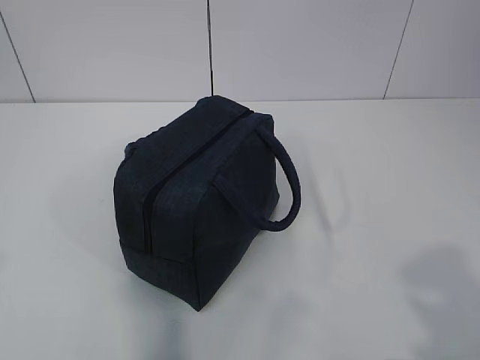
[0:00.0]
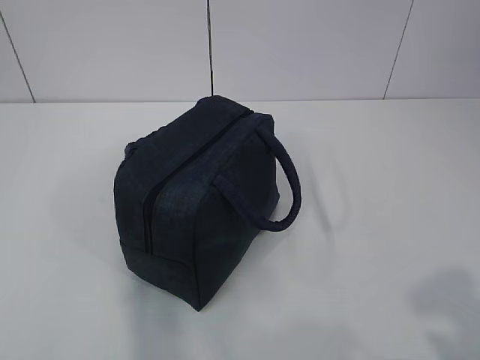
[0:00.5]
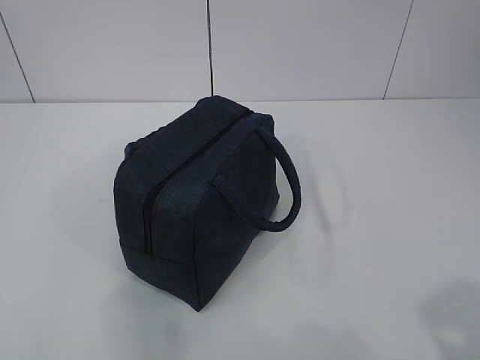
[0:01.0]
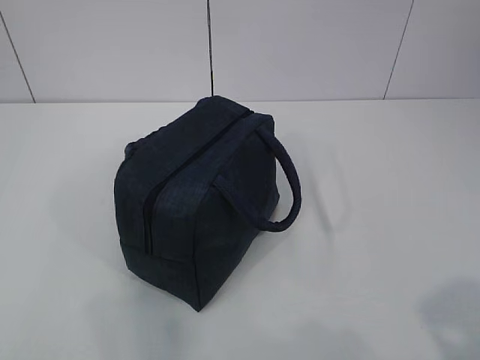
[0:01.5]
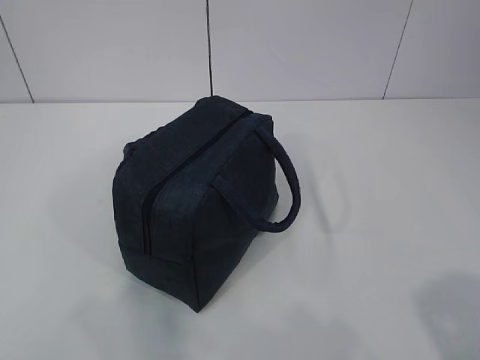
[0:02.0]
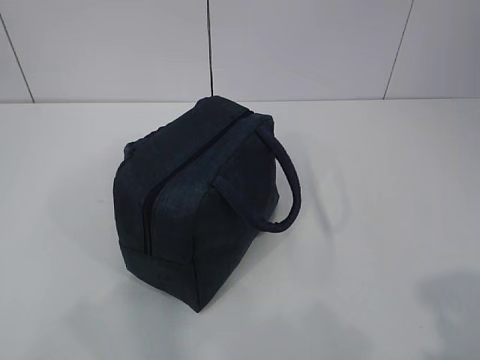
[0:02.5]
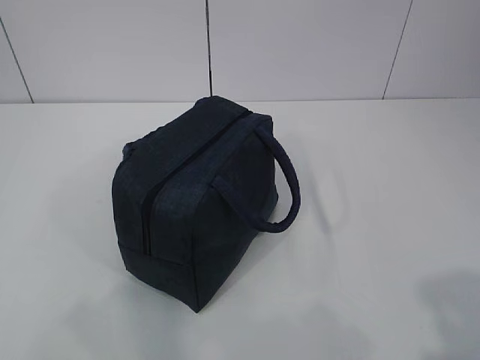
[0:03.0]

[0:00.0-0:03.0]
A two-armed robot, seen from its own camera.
0:01.5 to 0:03.0: The grippers stay close to where they were, moving slightly.
